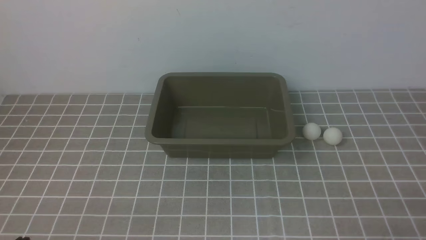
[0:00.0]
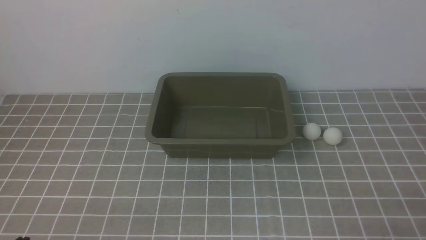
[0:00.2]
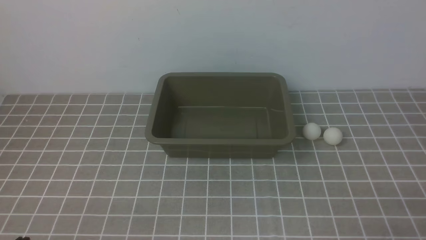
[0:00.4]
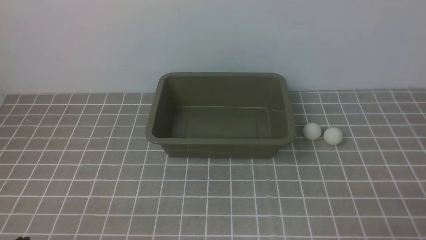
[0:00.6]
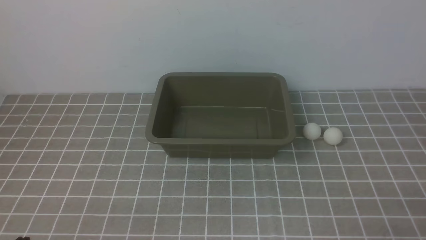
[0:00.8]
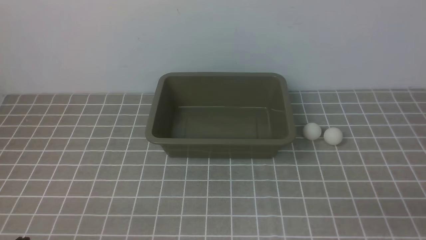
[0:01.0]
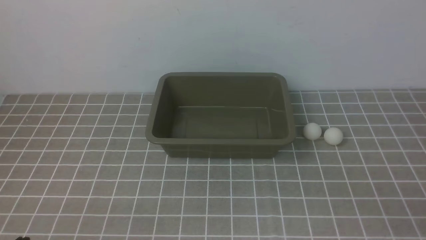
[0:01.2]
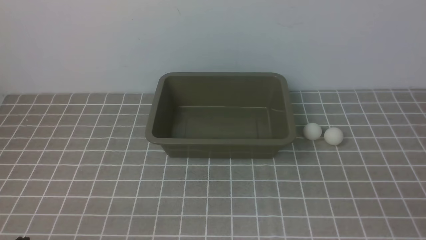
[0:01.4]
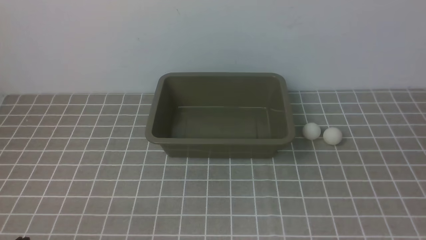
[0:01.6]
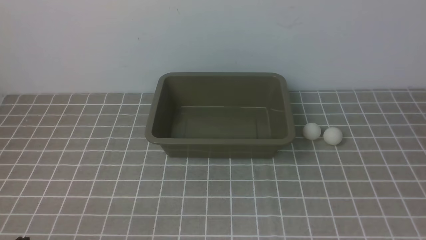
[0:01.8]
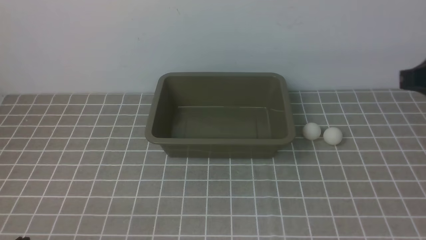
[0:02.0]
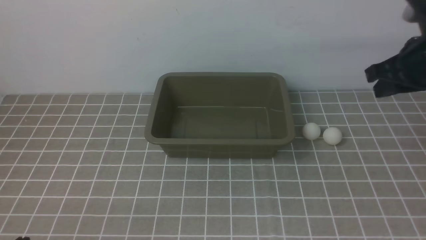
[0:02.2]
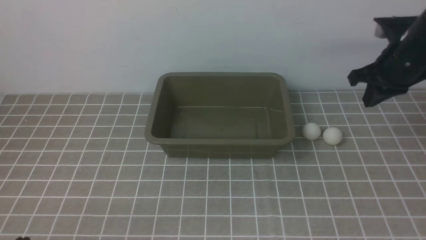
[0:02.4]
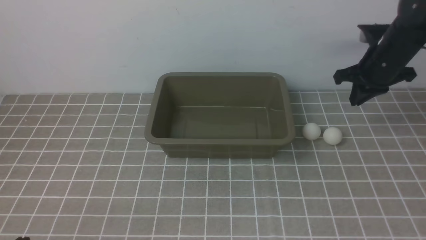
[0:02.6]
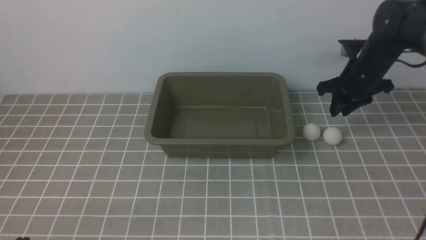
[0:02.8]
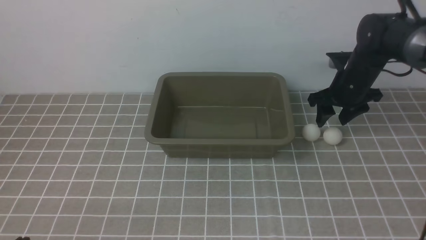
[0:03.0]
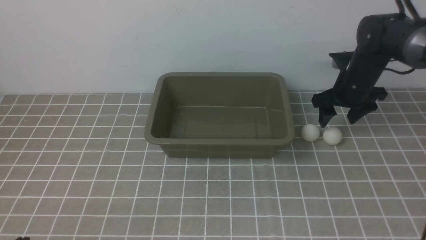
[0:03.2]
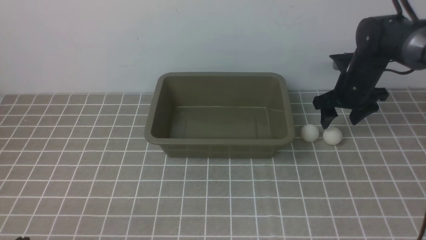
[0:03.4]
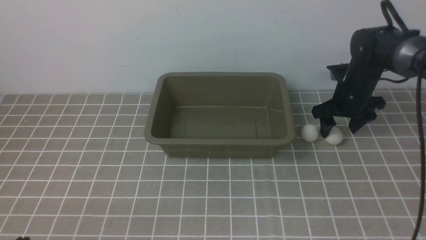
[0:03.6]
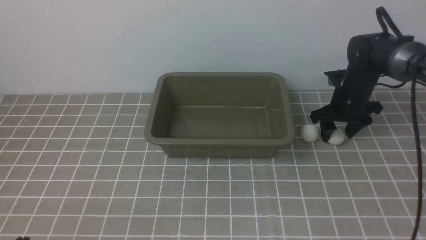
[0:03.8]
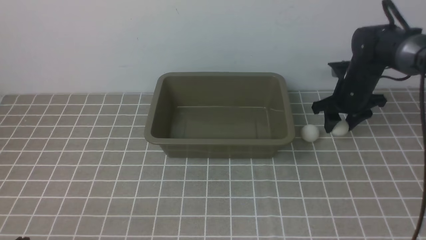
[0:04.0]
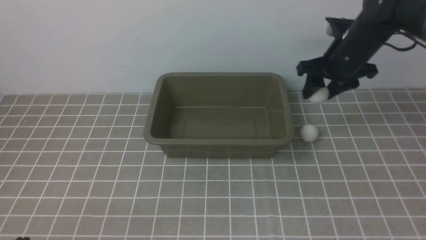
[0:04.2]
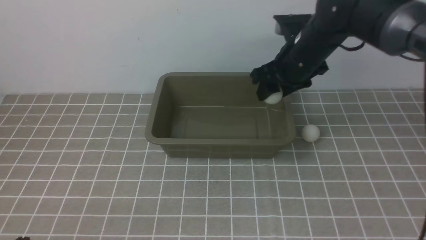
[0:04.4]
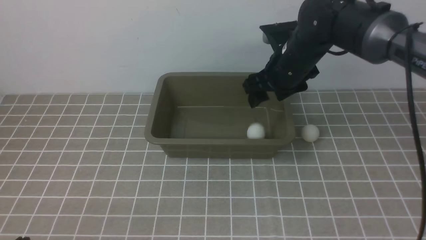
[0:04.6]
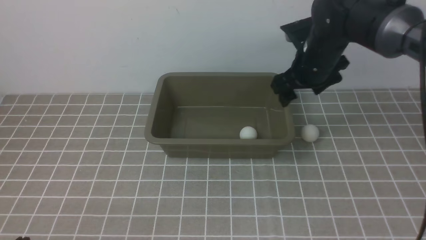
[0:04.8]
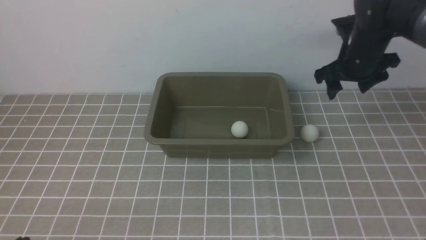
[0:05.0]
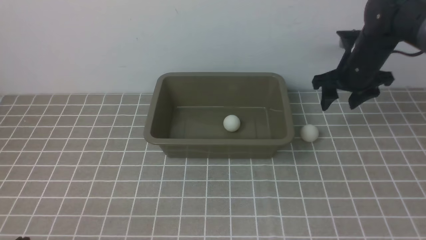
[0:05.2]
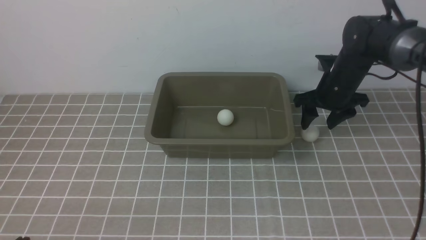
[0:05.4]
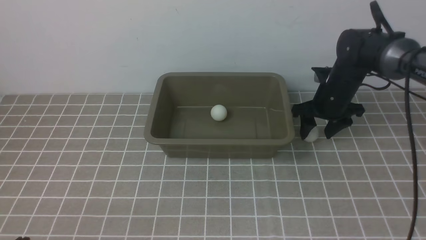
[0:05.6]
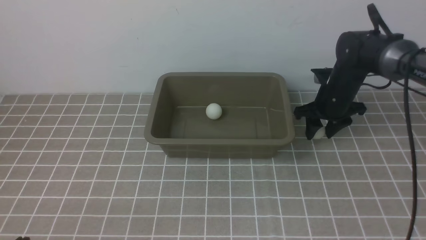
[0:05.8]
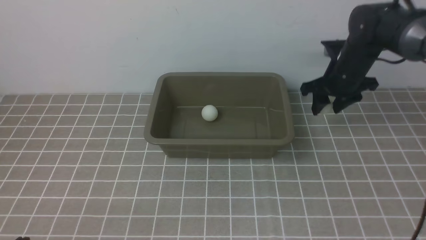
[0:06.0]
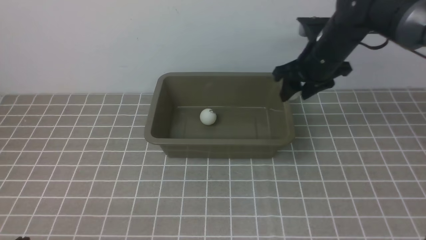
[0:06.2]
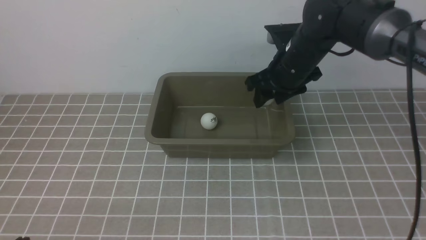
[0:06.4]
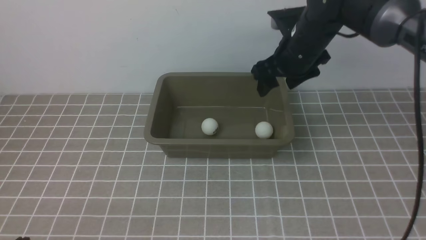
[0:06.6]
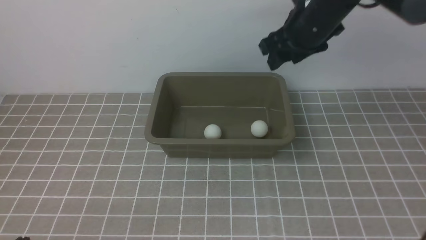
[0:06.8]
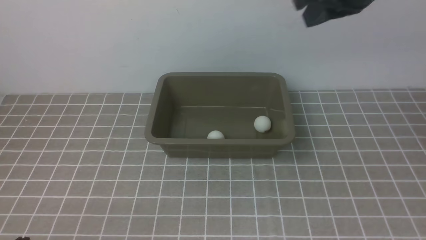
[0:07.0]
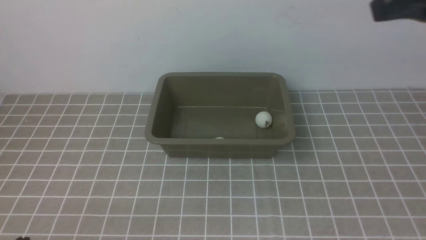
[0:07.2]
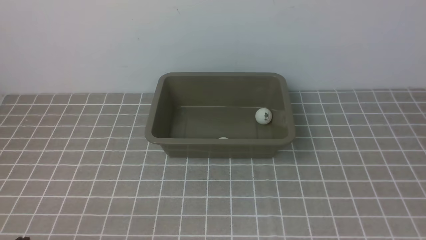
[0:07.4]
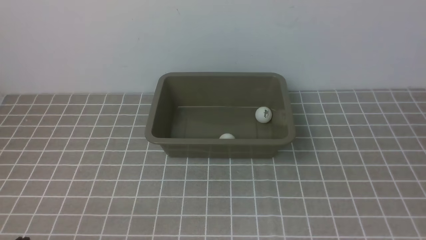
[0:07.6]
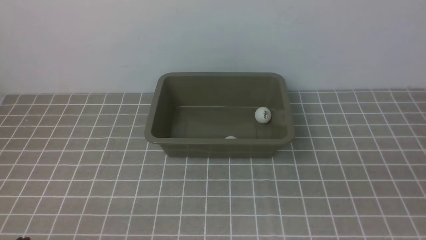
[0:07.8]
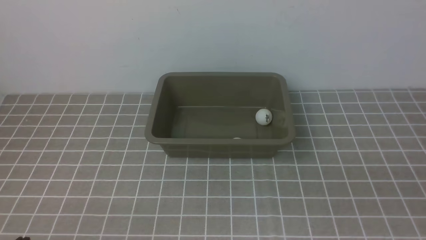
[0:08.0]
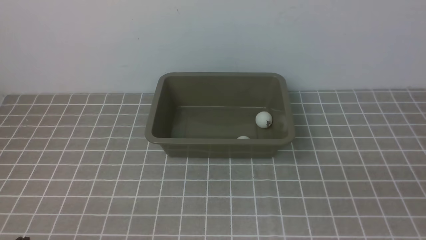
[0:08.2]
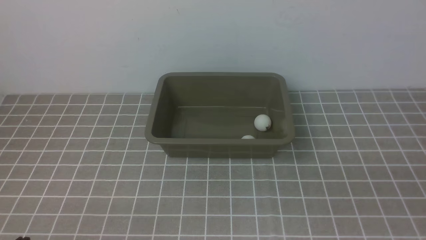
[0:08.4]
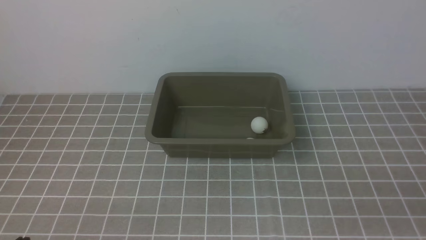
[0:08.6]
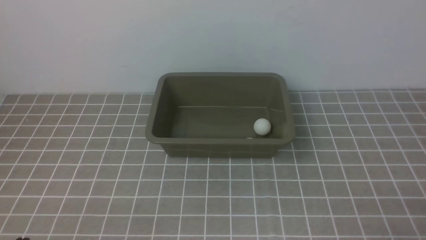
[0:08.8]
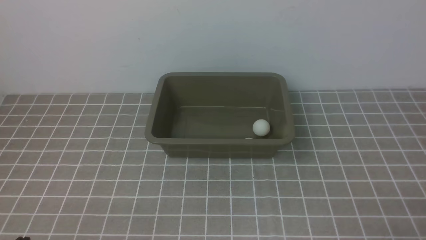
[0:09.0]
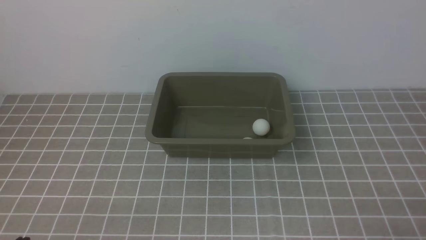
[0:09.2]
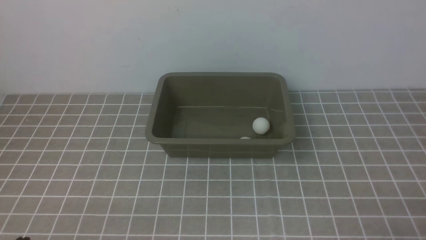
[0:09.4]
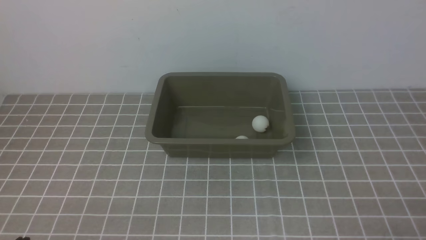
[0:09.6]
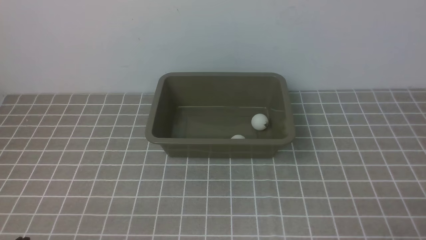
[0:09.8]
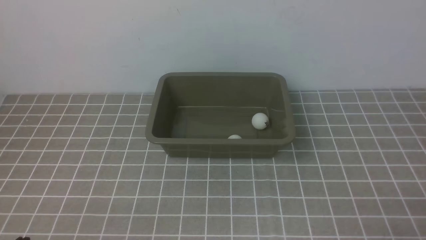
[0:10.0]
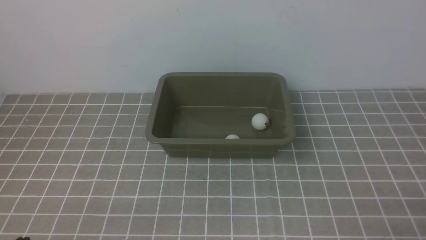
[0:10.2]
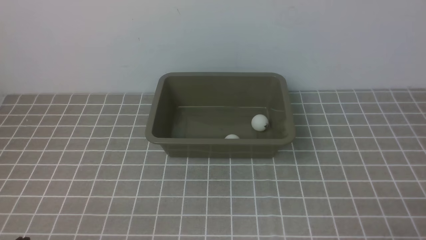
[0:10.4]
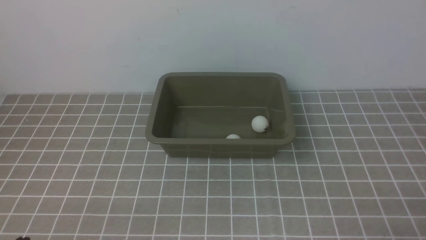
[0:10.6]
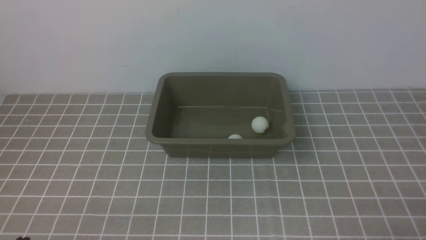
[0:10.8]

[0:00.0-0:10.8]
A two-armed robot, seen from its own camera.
Step, 0:00.0 to 0:04.0: use the right arm to clamp the table tennis ball closest to it.
Step, 0:04.4 to 0:04.6: use the right arm to put the table tennis ball into the box.
Step, 0:04.8 to 0:06.0: use the right arm to clamp the table tennis ball closest to it.
Step, 0:06.2 to 0:06.6: use the right arm to put the table tennis ball into the box.
0:01.6 to 0:03.0: The right gripper travels forward by roughly 40 cm, and opens its fingers.
0:03.0 to 0:04.6: The right gripper shifts approximately 15 cm to the left and upward.
0:06.2 to 0:07.8: The right gripper travels backward by approximately 40 cm, and closes up.
0:09.2 to 0:10.8: Both grippers stay about where they are.
